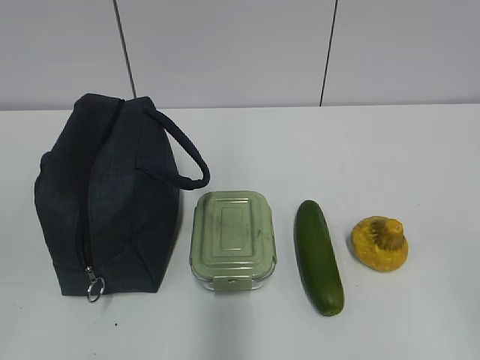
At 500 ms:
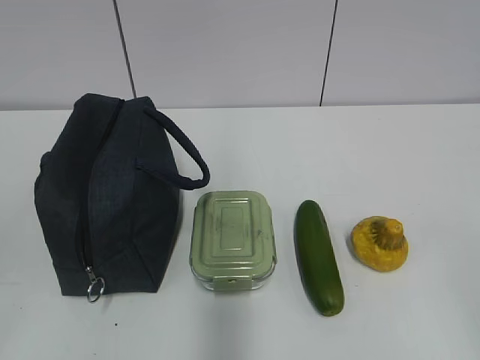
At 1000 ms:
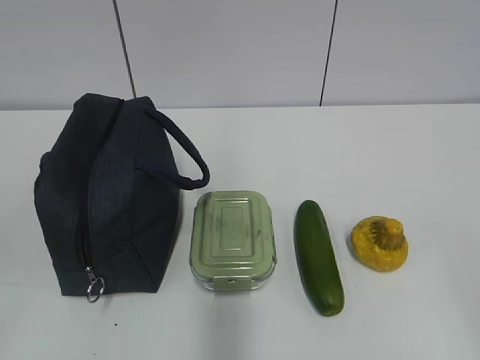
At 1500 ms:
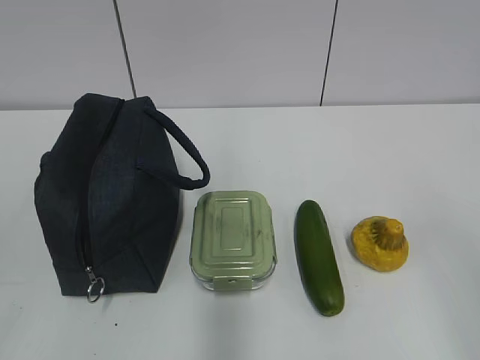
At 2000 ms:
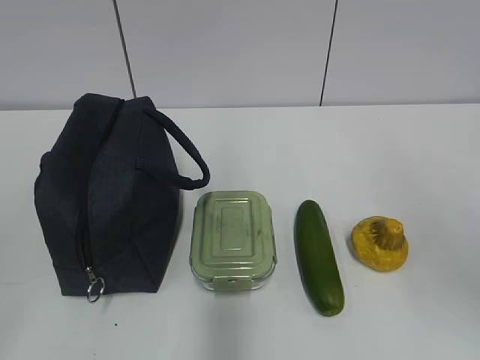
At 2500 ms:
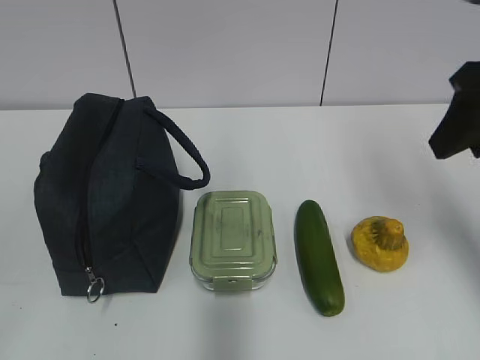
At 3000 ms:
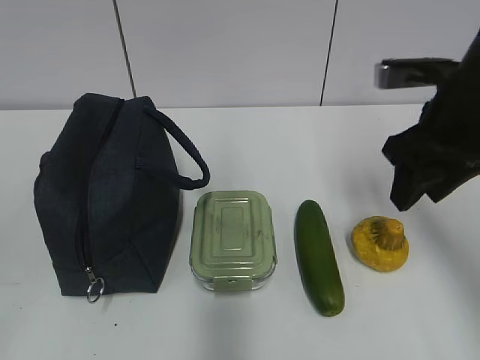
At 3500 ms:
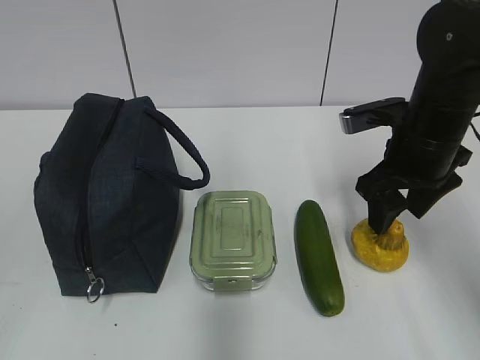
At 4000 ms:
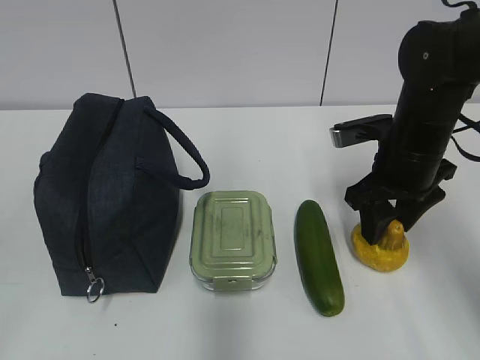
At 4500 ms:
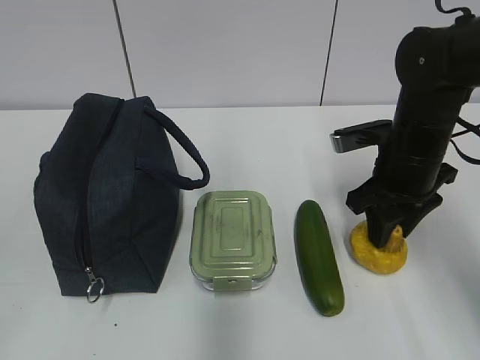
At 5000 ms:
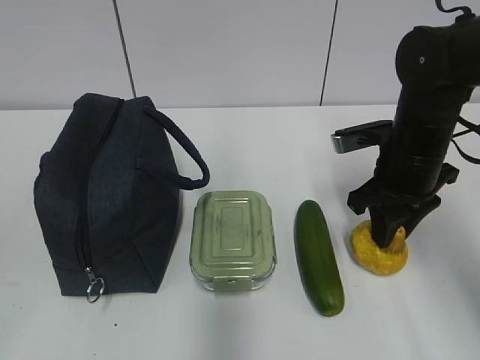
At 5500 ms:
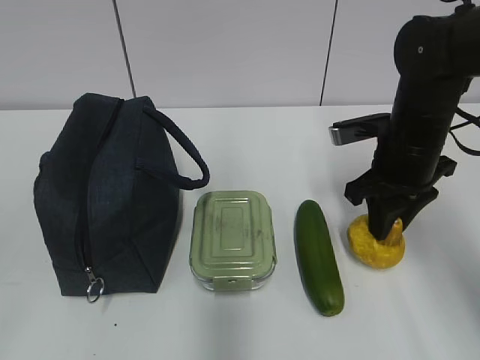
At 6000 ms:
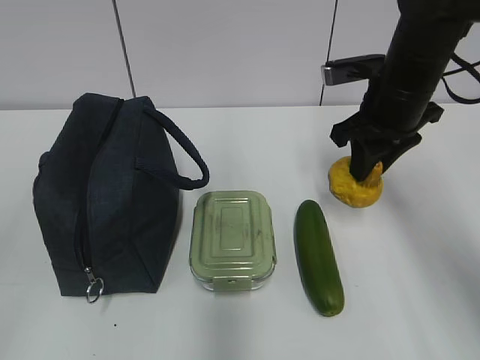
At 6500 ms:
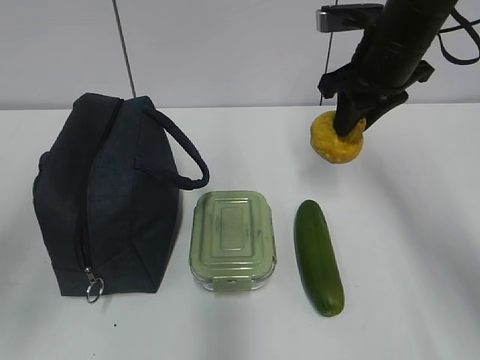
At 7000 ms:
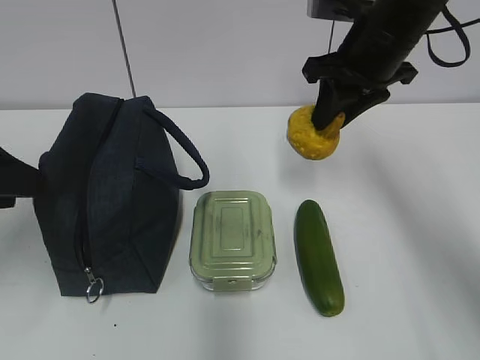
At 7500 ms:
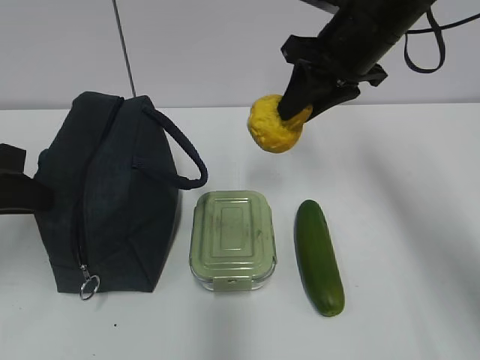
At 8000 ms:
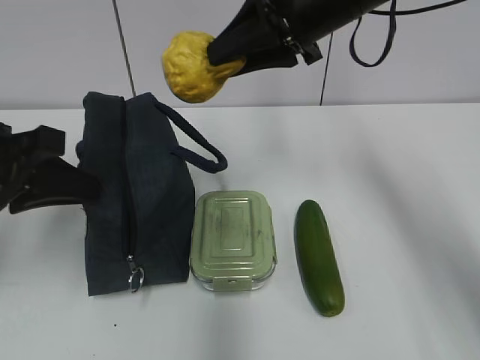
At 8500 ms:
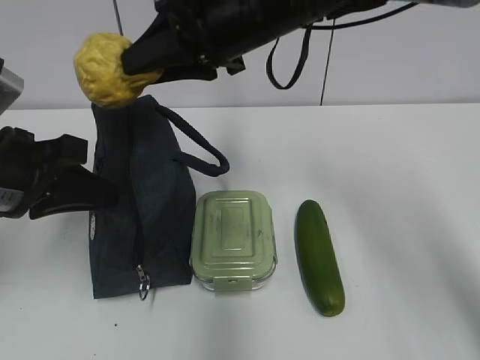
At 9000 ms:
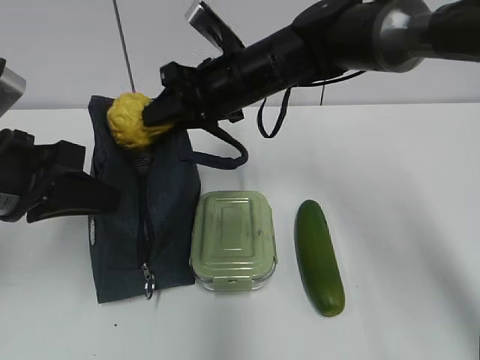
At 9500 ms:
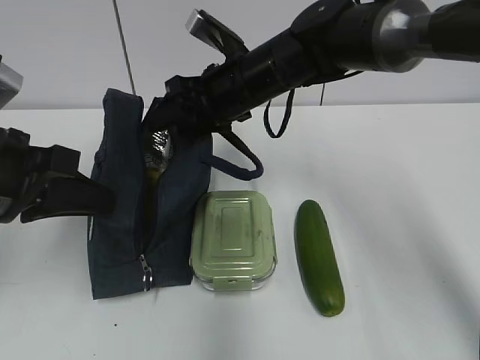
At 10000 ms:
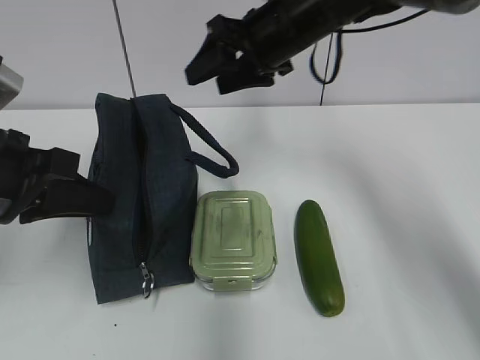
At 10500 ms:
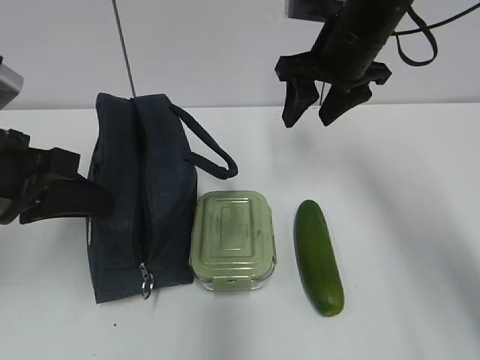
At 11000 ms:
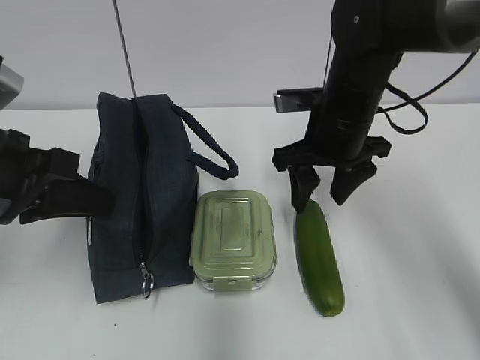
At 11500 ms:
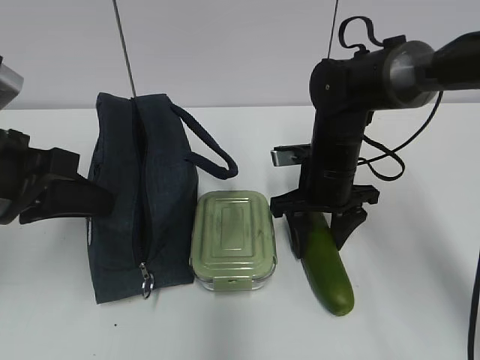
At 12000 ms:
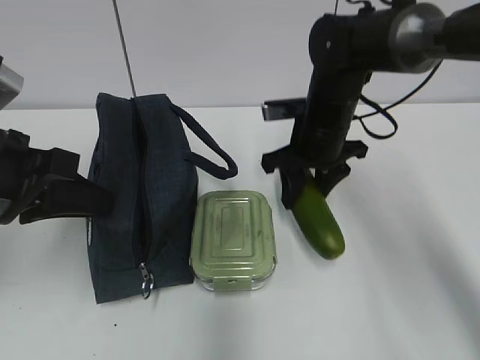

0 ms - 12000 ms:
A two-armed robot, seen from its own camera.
Step, 0 ms - 5000 ms: Grab the pear with your right hand.
Step, 5500 ms - 9000 ms: Grab the lunch bag with your left hand.
Step, 10000 ms - 11500 ms: Grab the cucumber with your right hand.
2000 ms - 4000 ms: The right gripper shifts approximately 30 cm forward and downward.
4000 ms - 6000 ms: The right gripper heads upward, covering approximately 5 cm, and closes its fingers.
6000 ms - 8000 ms: The right gripper shifts about 10 cm upward and to the left. Meanwhile the left gripper moves forward, roughly 20 cm, and closes its fingers.
8000 ms - 10000 ms: The right gripper opens up.
10000 ms - 12000 ms: The right gripper travels downward by about 10 cm.

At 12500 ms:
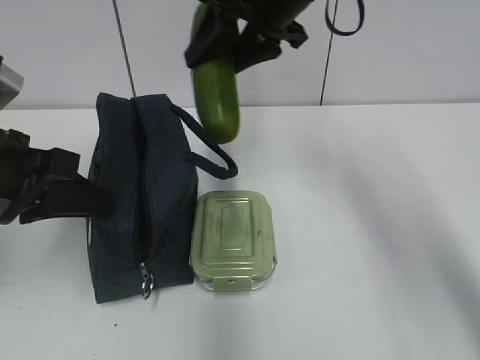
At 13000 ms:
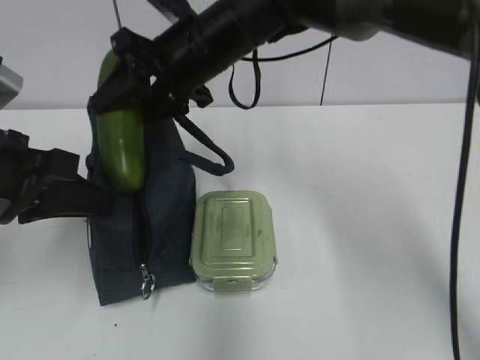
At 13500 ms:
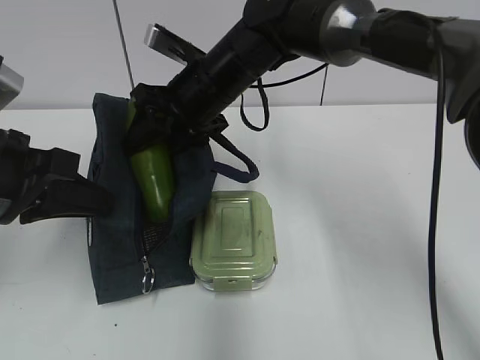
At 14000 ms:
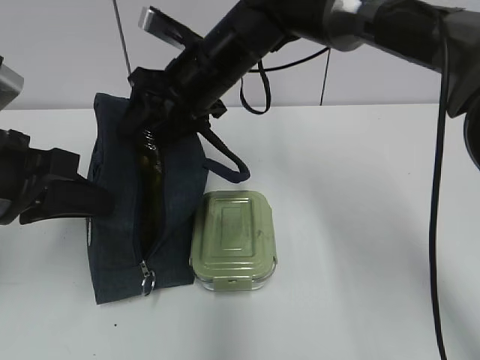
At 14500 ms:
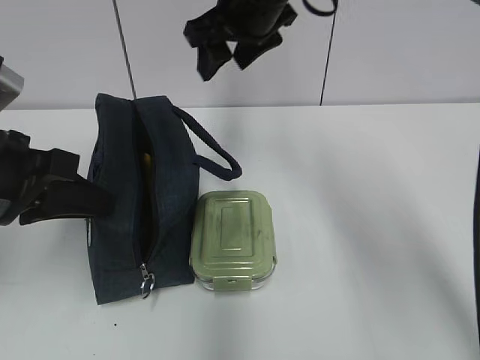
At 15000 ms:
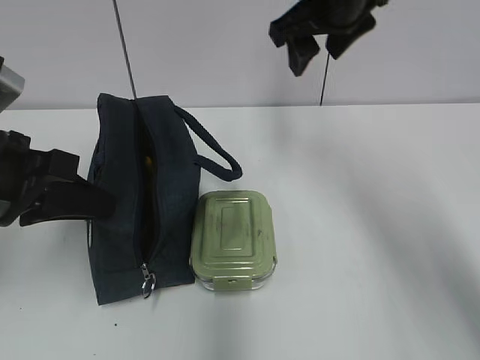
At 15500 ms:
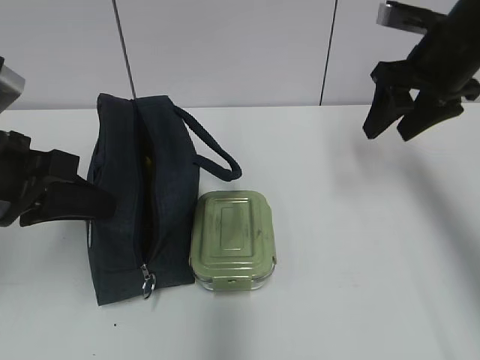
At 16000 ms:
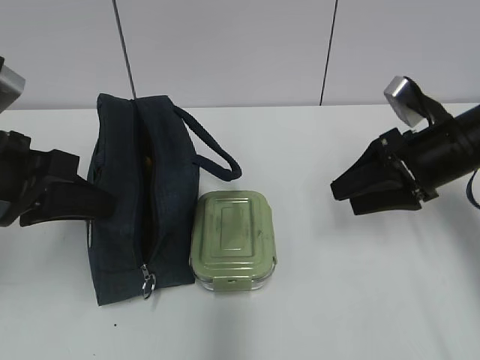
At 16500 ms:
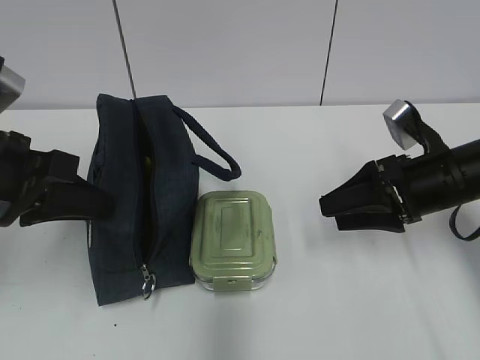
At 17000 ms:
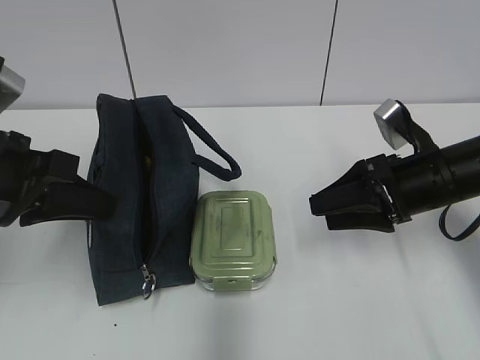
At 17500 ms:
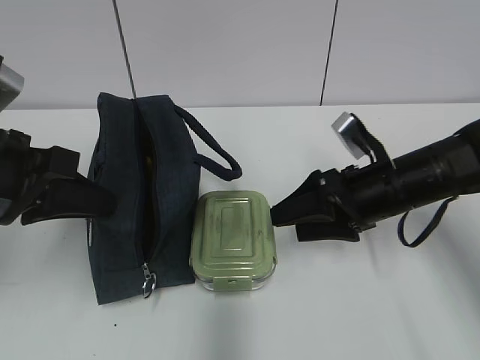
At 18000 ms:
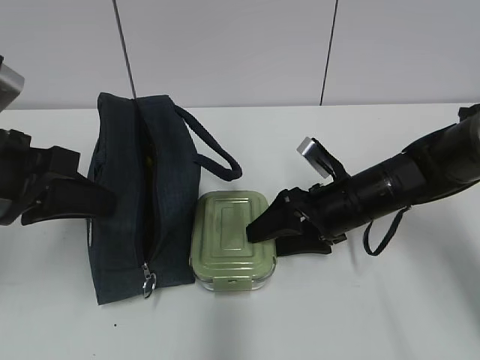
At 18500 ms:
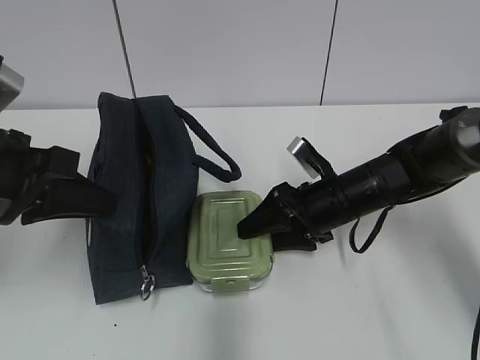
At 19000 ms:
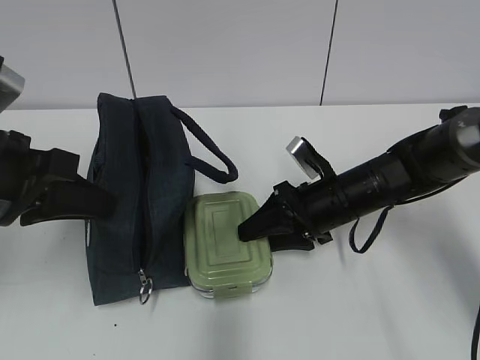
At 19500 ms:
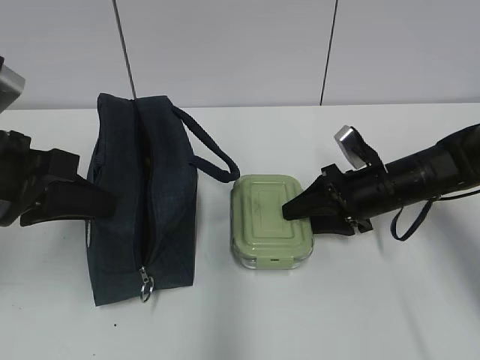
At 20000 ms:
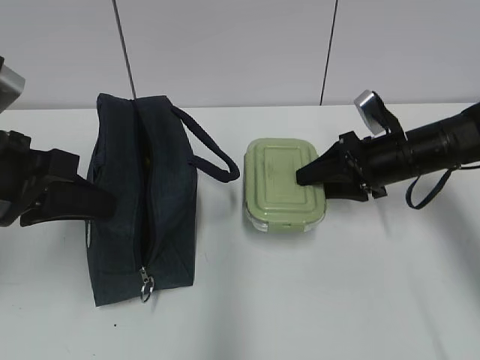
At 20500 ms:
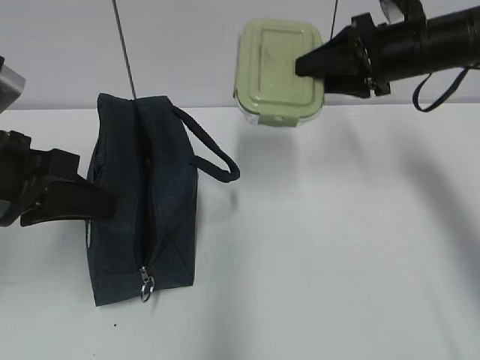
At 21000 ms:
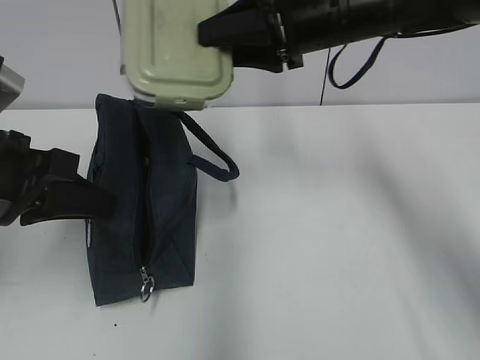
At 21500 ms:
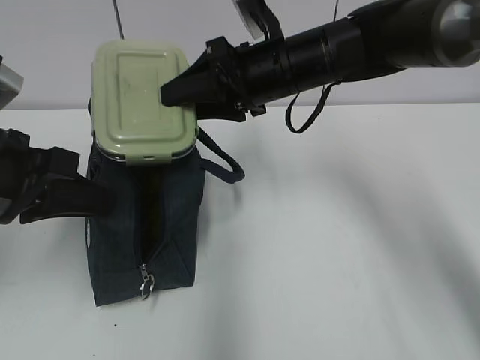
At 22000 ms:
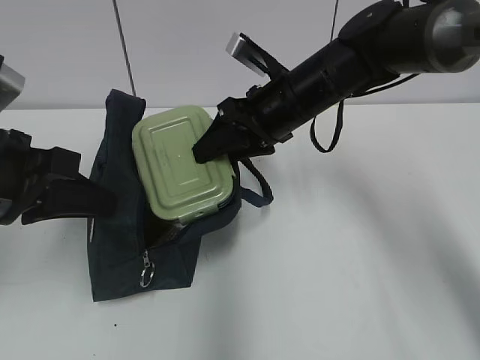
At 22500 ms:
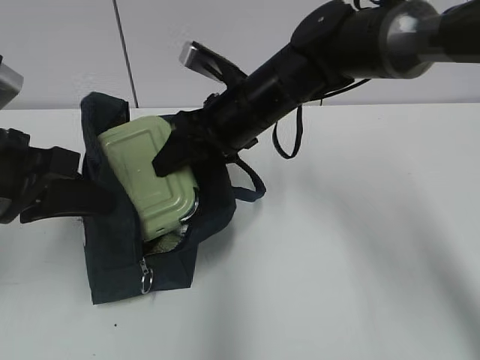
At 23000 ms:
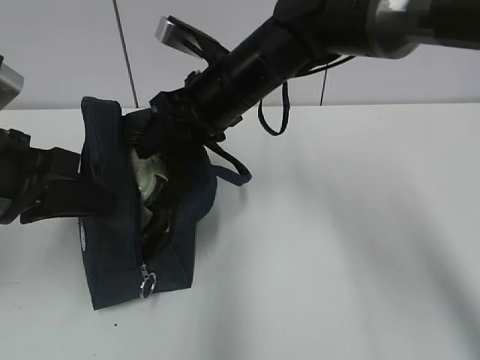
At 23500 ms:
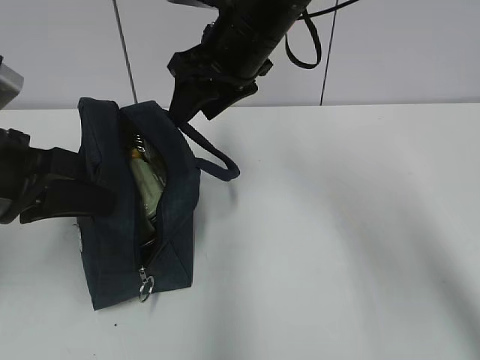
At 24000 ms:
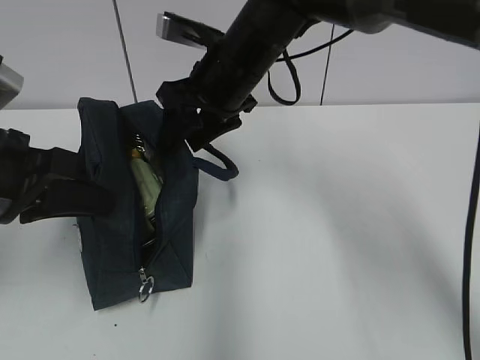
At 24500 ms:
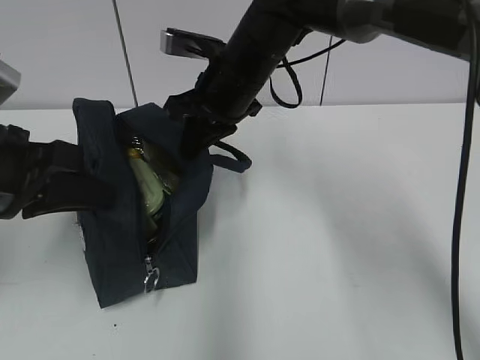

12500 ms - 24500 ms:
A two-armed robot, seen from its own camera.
Step, 12500 ms - 14000 ms: Place it into the bag with your right hand.
Step, 14500 ms - 19000 ms: Grab the lunch box with your right hand.
Step, 23500 ms - 24500 ms: Grab the lunch bag with your right hand.
12500 ms - 14500 ms: The right gripper reaches some 10 cm downward, then returns.
14500 ms - 16500 ms: The right gripper heads to the right, downward and backward, covering about 25 cm.
16500 ms - 18500 ms: The right gripper goes some 10 cm to the left and downward.
18500 ms - 20500 ms: The right gripper shifts about 20 cm upward and to the right.
20500 ms - 22500 ms: The right gripper goes some 20 cm to the left.
22500 ms - 24500 ms: The right gripper goes upward and returns, roughly 10 cm each way, and closes its fingers.

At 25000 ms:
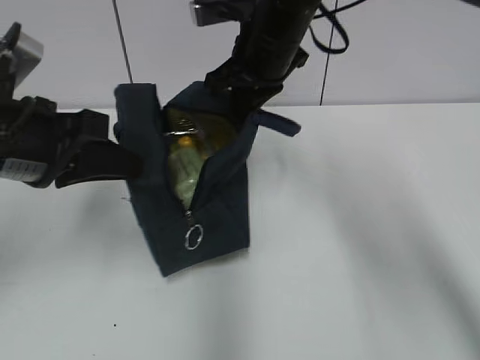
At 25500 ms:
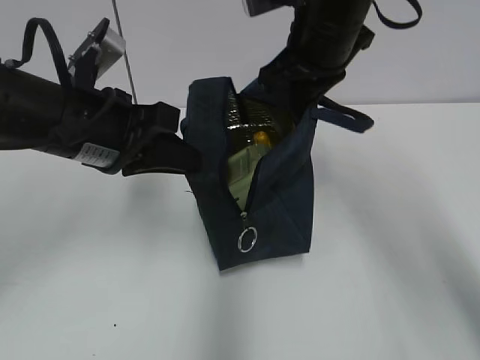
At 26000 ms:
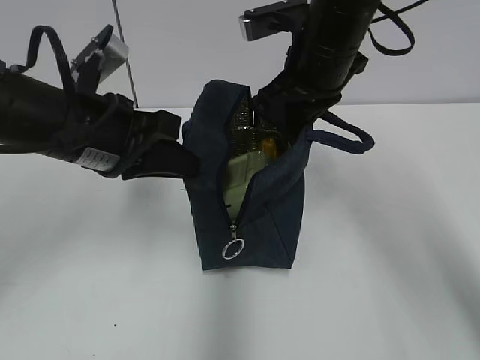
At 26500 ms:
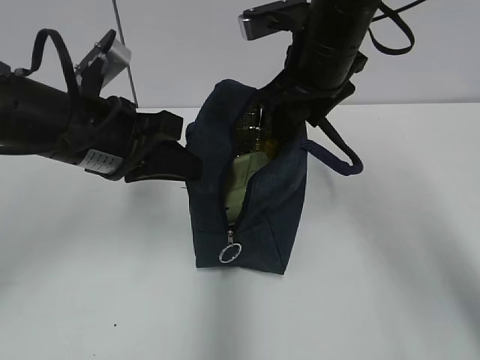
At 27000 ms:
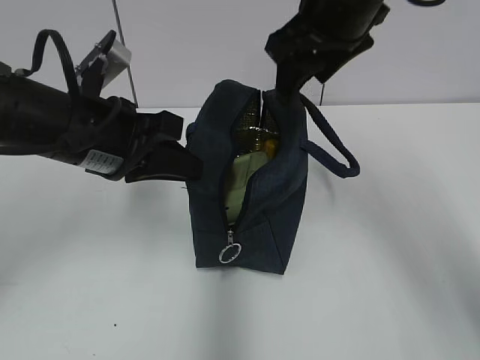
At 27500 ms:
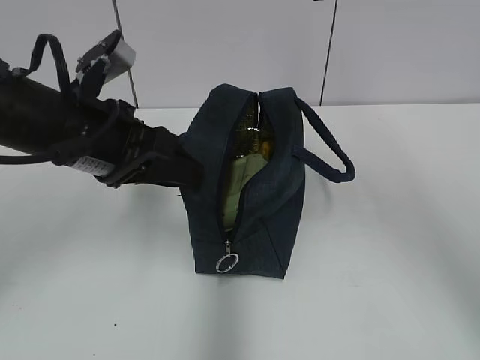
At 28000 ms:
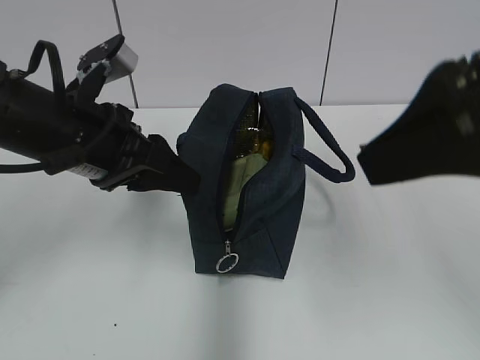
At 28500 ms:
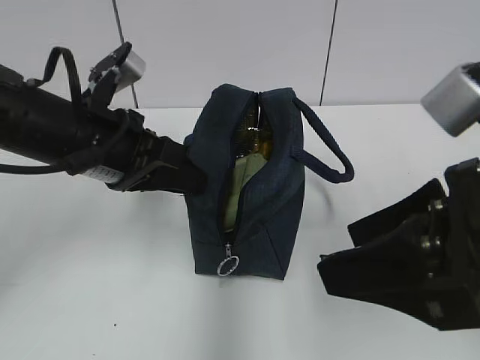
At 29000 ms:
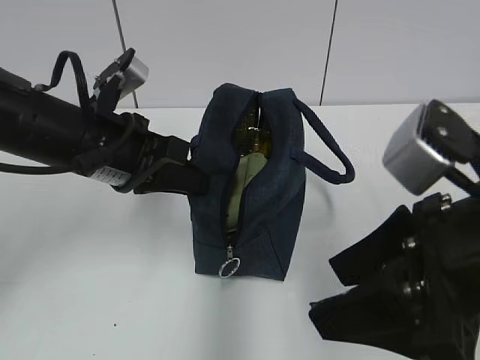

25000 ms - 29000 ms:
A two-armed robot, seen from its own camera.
Step, 25000 ms - 26500 ms: Move the lunch bag to the right.
25000 ms - 27000 ms: The left gripper ends up about 5 cm from where it was, while the right gripper heads upward, backward and to the right, covering approximately 10 cm, and opens.
27000 ms - 29000 ms: The left gripper opens, then closes again. Meanwhile the right gripper goes roughly 20 cm backward.
